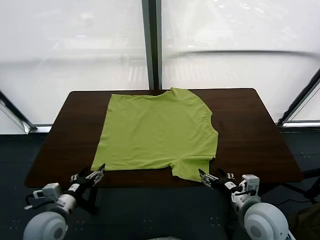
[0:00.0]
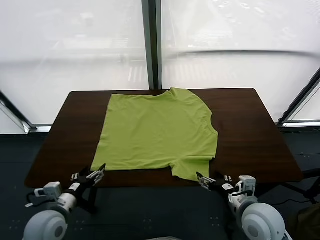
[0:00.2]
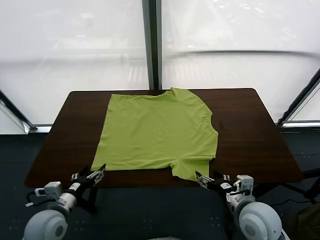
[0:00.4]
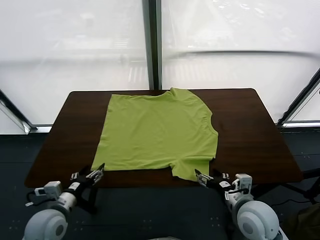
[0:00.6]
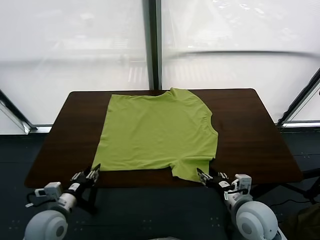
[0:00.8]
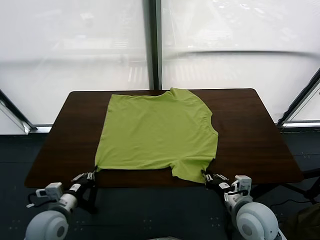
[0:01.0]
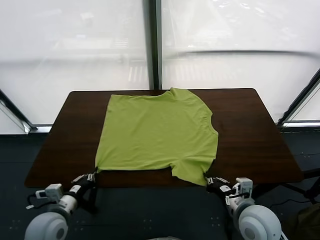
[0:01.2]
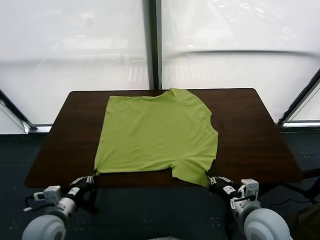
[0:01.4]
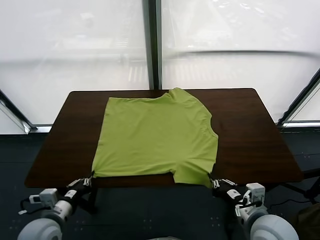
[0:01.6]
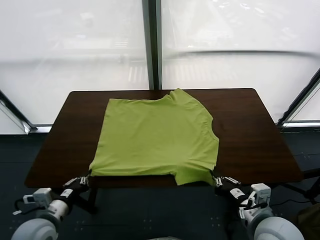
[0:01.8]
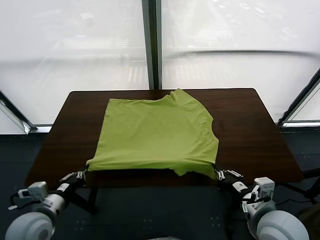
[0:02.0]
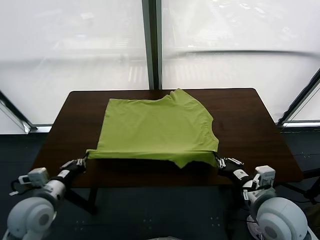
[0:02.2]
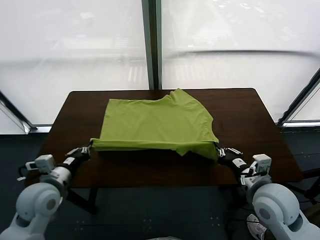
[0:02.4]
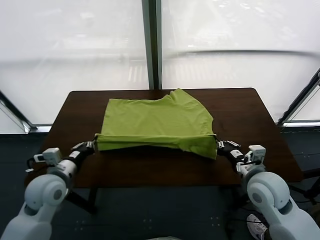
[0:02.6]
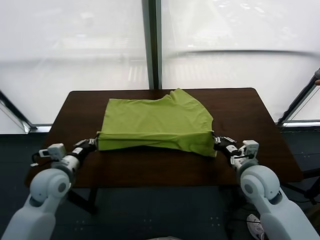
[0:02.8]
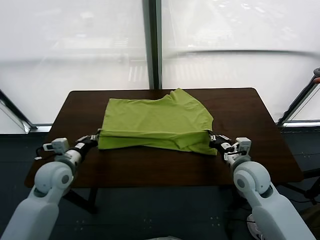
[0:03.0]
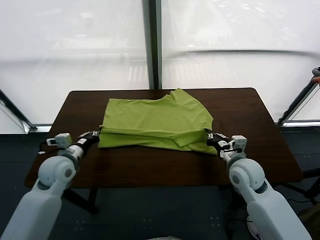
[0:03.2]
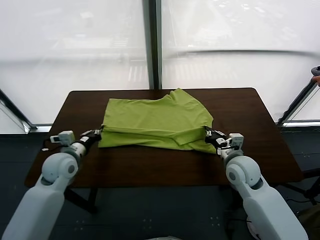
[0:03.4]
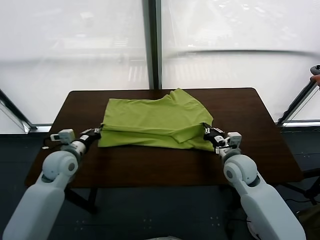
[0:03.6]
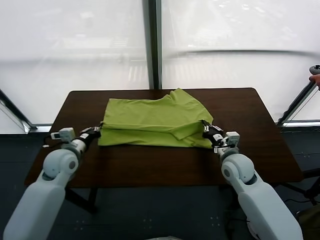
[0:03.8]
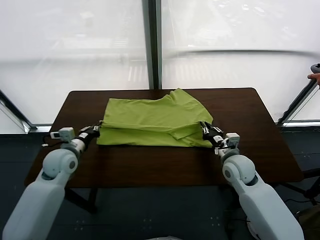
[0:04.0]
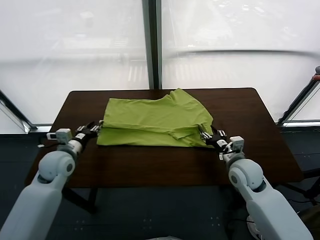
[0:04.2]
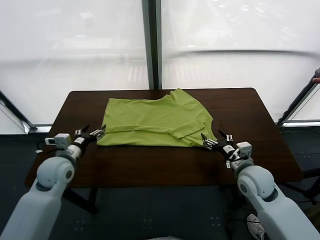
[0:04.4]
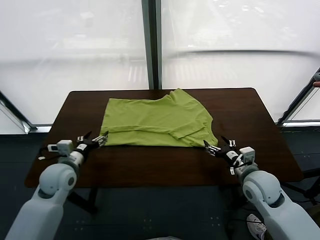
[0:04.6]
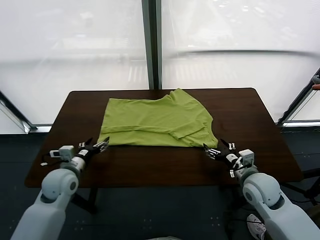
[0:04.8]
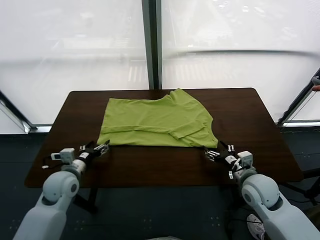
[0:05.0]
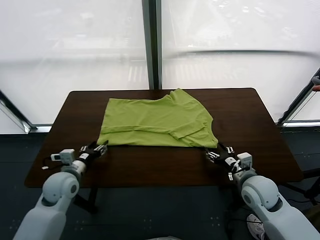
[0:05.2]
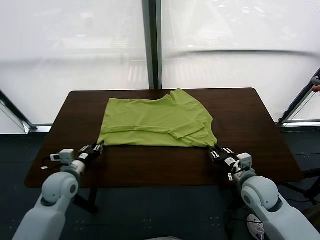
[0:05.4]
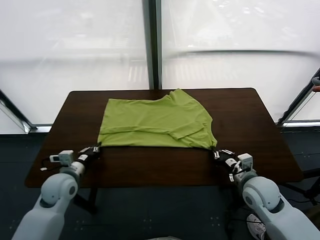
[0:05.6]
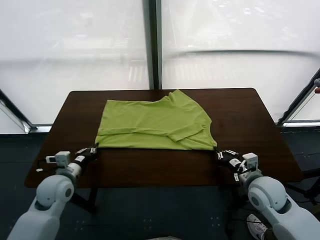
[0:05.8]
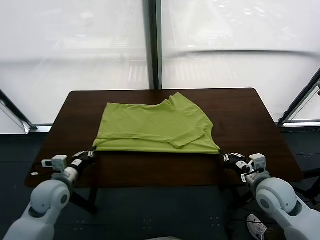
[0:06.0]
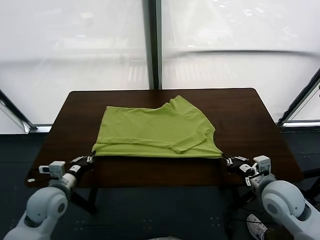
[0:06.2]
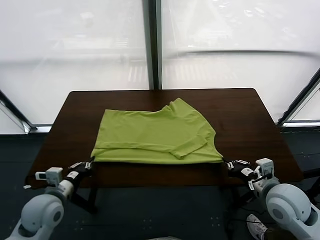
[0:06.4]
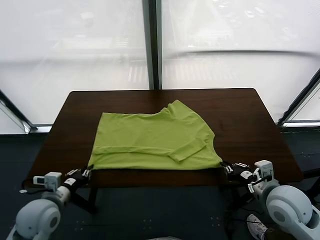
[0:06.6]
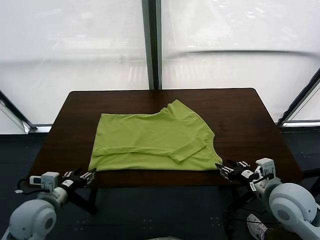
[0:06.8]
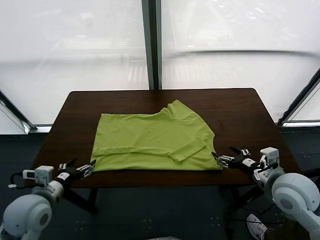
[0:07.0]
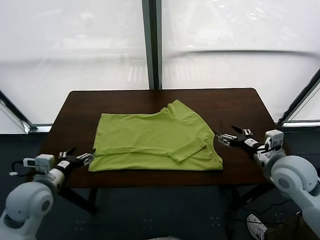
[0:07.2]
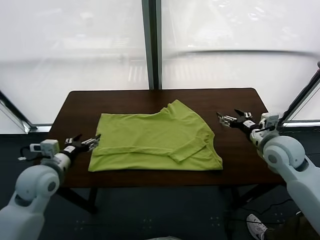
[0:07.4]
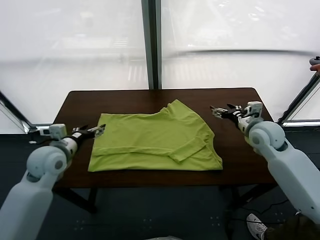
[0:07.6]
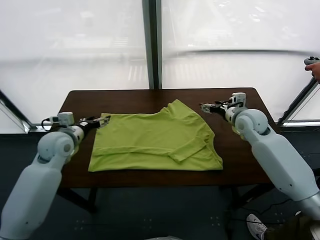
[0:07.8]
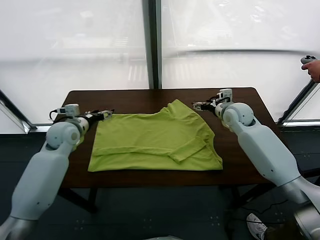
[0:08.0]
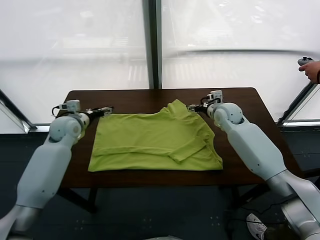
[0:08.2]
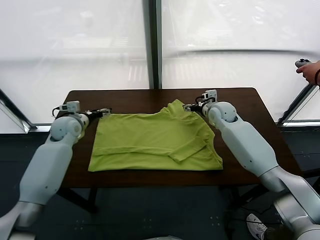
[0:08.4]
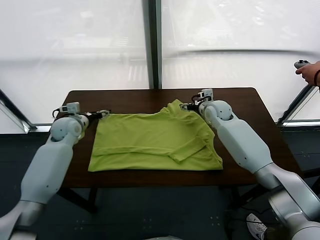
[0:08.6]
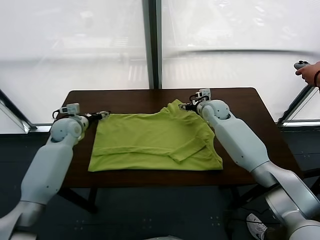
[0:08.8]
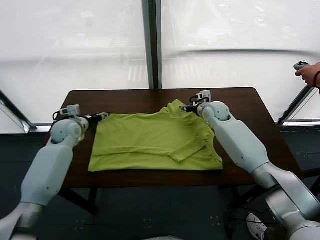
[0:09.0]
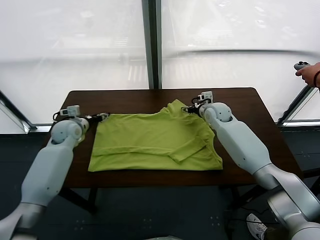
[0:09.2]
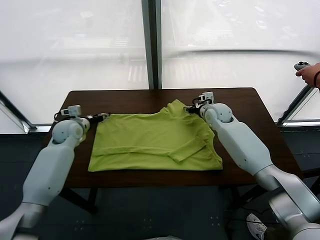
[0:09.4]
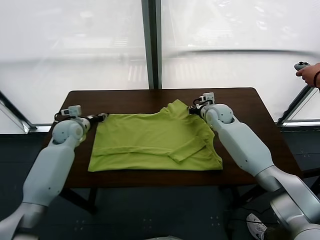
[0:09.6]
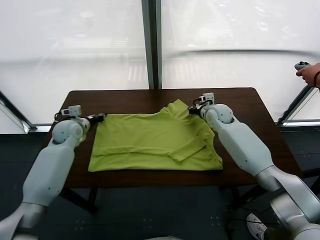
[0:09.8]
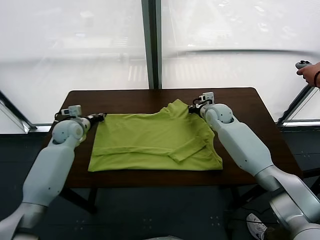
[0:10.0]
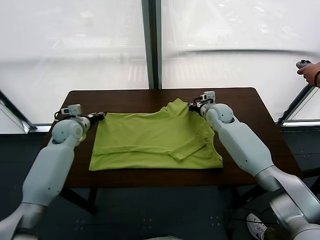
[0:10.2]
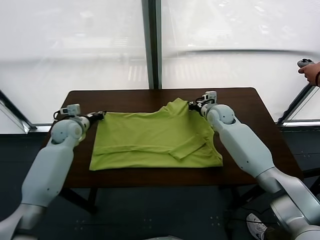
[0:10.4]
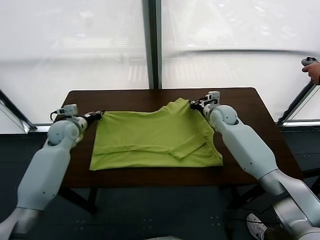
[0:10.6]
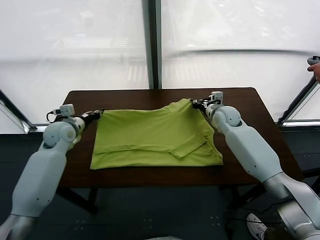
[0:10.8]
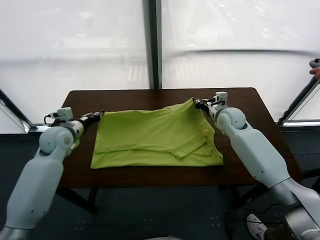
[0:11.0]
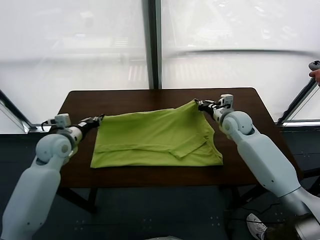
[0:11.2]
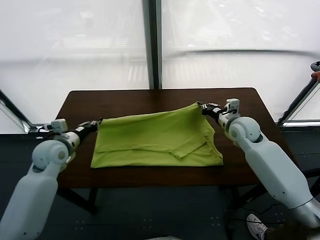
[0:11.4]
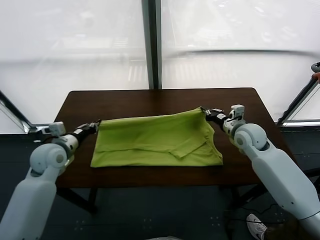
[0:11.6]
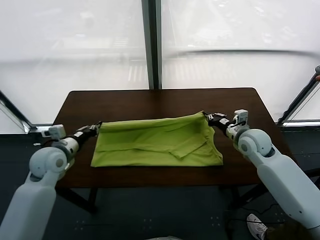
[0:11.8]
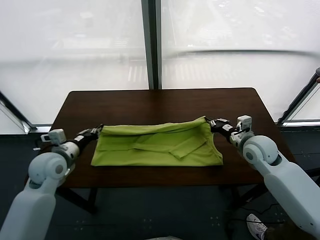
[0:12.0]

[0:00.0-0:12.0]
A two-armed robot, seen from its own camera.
Task of the whole recording: fold and organize the clothes.
Step, 0:00.0 to 0:01.2: use both grippers simultaneously to clamp the lower edge of the clothing fabric.
Step, 0:01.4 to 0:04.2: use both grippers to drag the lower edge of the fabric forward and fold it over the upper edge.
Step, 0:04.4 to 0:06.8: Drag the clothes downward with both gripper.
Step, 0:07.0 to 0:10.0: use both grippers simultaneously to clamp the upper edge of the clothing fabric.
0:01.6 to 0:03.0: The right gripper is displaced forward and downward by approximately 20 cm; the left gripper goes some 20 cm forward.
0:03.0 to 0:04.4: The left gripper opens; the right gripper moves backward, roughly 5 cm, and opens.
0:04.4 to 0:06.0: The left gripper moves backward, roughly 10 cm, and closes up, while the right gripper moves upward and backward, roughly 10 cm, and closes up.
0:06.0 to 0:07.6: The two grippers go approximately 25 cm forward. The left gripper opens; the right gripper opens.
0:07.6 to 0:09.0: The left gripper shifts by approximately 5 cm, and closes its fingers. Meanwhile the right gripper shifts by roughly 5 cm, and closes its fingers.
0:09.0 to 0:10.4: The left gripper ends up some 5 cm from where it was, and closes.
0:10.4 to 0:12.0: Both grippers travel together backward, approximately 15 cm.

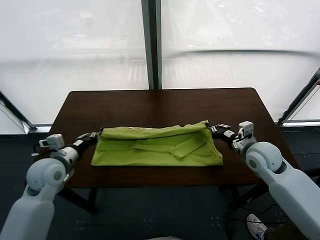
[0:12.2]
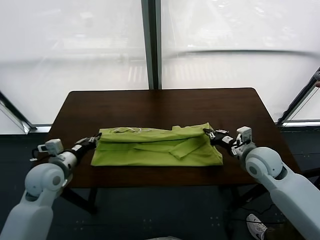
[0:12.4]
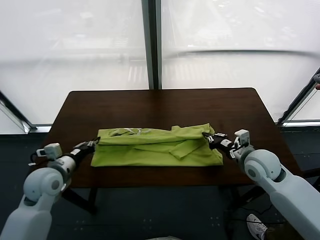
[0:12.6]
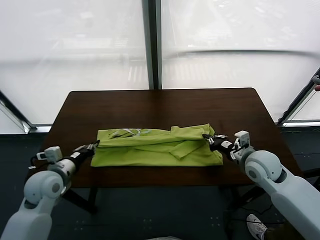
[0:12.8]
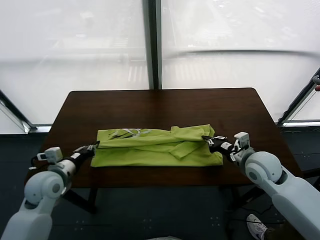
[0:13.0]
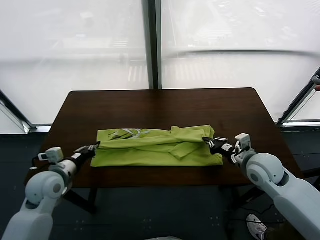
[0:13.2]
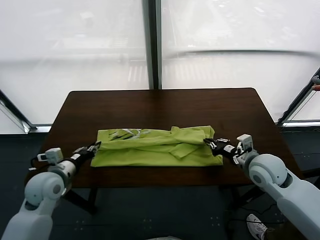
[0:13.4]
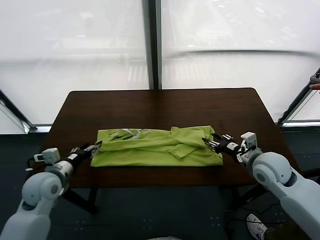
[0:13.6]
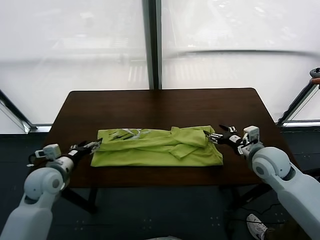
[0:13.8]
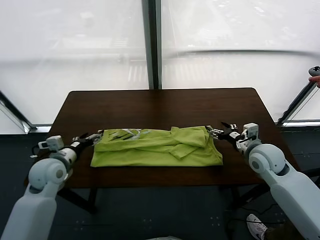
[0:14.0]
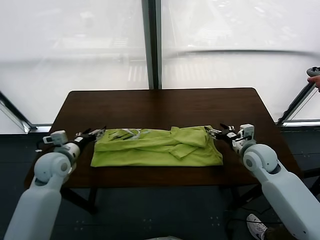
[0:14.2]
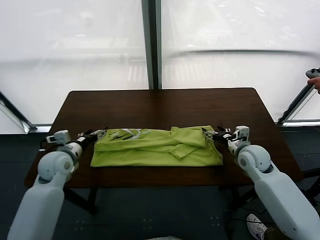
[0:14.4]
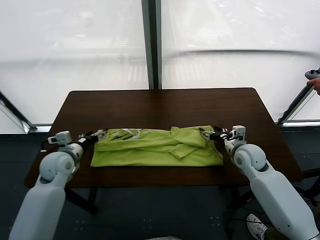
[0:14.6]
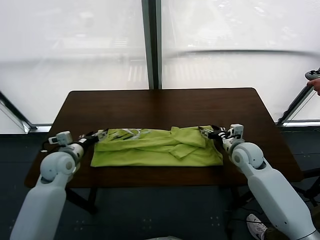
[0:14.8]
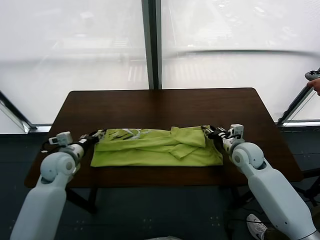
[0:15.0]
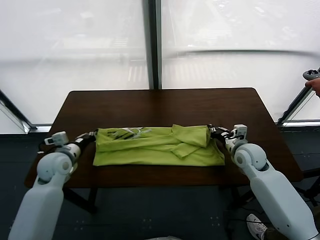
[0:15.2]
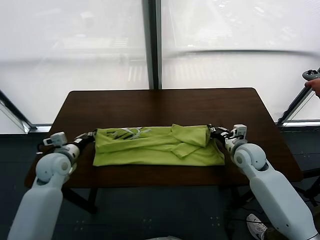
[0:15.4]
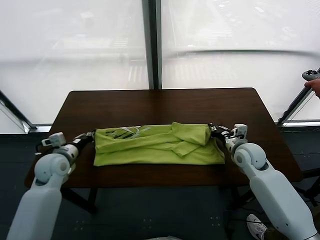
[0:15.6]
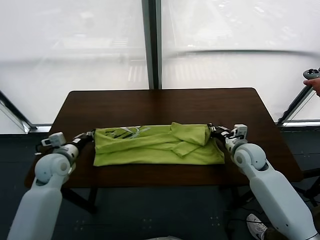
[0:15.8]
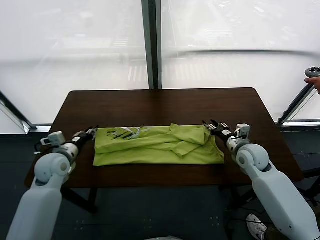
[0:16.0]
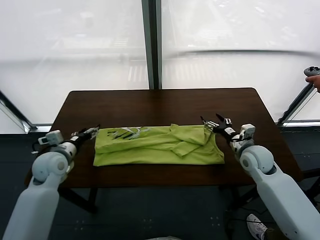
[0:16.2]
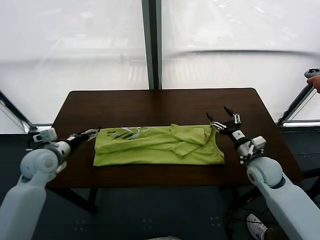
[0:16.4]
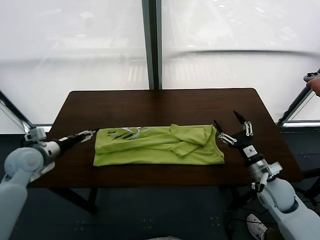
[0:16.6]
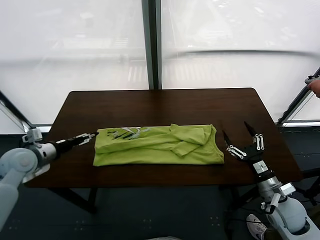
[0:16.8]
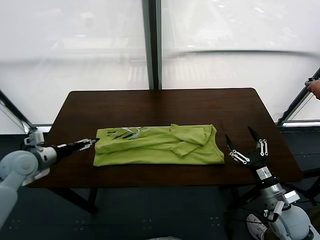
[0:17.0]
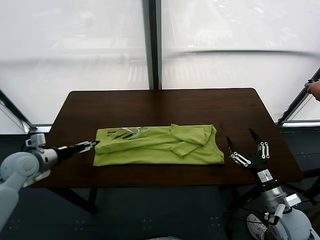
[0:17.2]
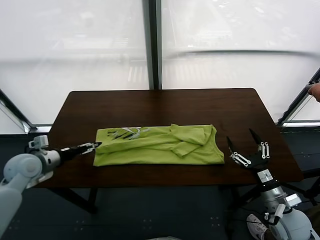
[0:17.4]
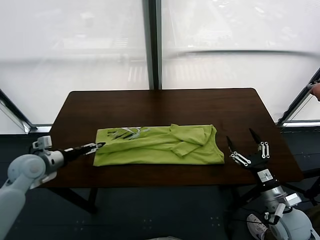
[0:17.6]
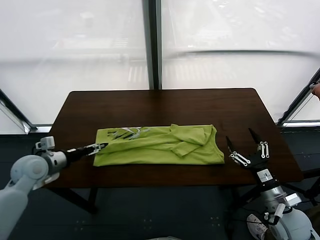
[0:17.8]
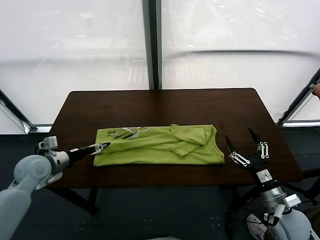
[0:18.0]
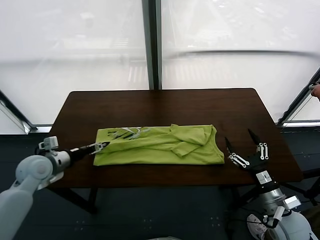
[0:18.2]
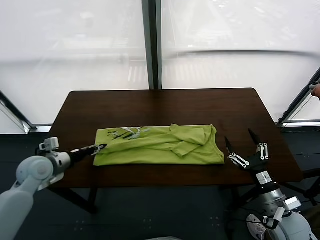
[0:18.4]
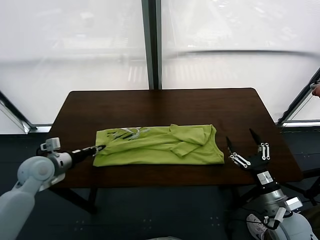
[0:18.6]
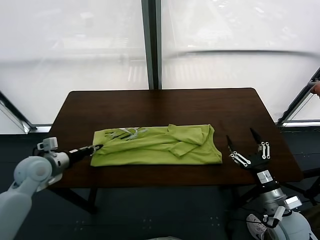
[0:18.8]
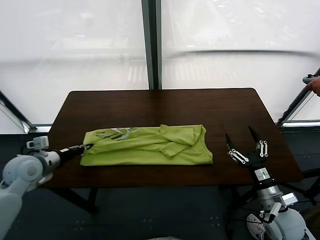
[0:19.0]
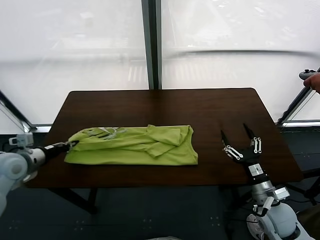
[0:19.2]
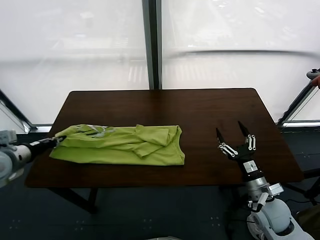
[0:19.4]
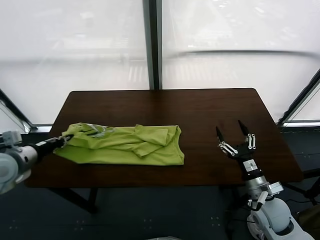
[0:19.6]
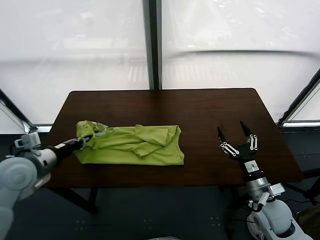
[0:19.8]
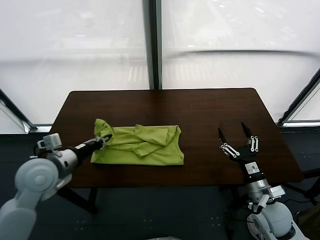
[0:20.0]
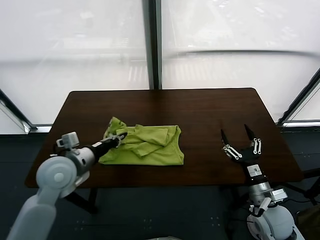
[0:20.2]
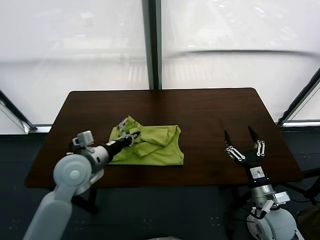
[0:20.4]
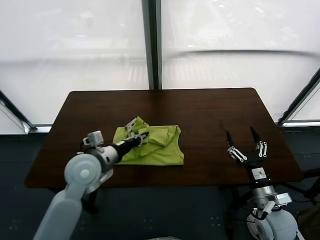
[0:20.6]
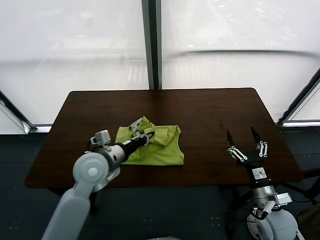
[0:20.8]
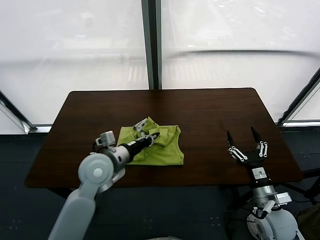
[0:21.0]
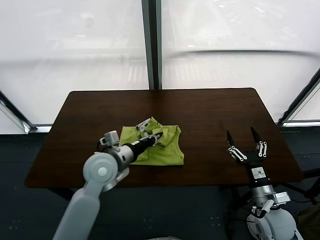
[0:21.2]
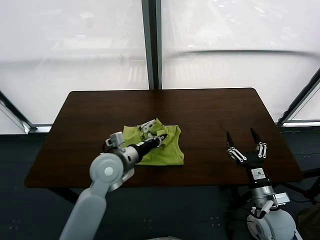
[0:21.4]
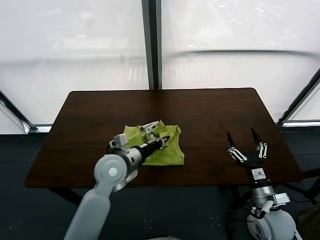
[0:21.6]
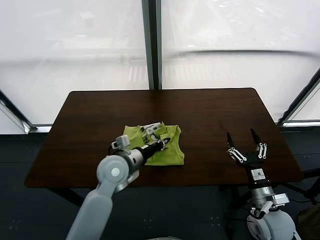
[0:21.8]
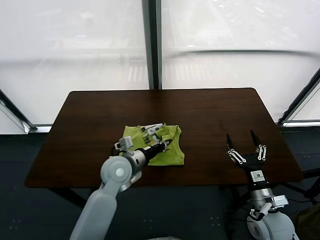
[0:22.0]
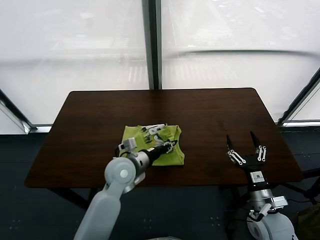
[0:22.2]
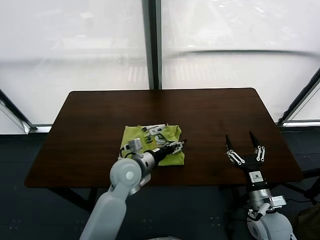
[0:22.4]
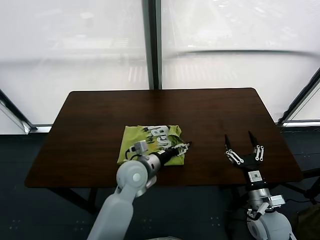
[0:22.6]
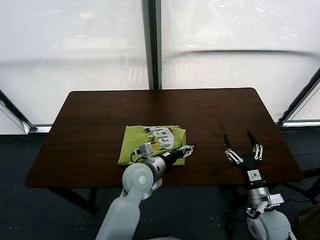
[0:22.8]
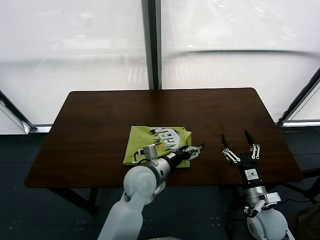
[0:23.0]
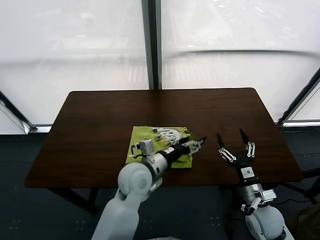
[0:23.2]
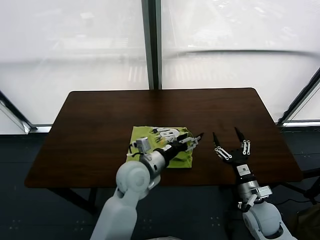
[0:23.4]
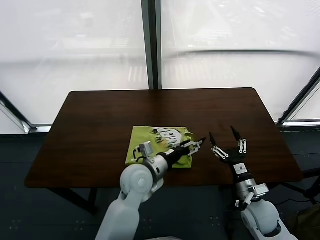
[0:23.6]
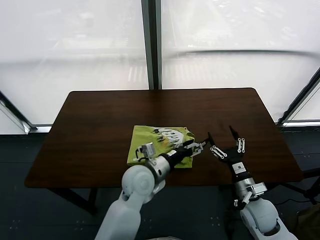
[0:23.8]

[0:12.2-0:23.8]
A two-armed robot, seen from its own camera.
Task of the whole recording: fold and organize the clothes.
Step, 0:13.8 to 0:18.4: use the left gripper to clamp the left edge of the fabric.
Step, 0:18.6 to 0:23.4: use the left gripper to drag the left edge of the fabric to the left and folds it over the right edge.
0:12.2 to 0:13.6: The left gripper goes roughly 5 cm forward, and opens its fingers; the right gripper moves some 5 cm, and opens its fingers.
0:13.6 to 0:15.0: The right gripper closes up. The left gripper closes its fingers.
0:15.0 to 0:16.6: The left gripper goes roughly 10 cm to the left and upward, and opens its fingers; the right gripper goes approximately 10 cm backward, and opens.
0:16.6 to 0:18.0: The right gripper travels backward by about 10 cm.
0:18.0 to 0:19.4: The left gripper goes roughly 10 cm upward, and closes up; the right gripper changes place by approximately 5 cm.
0:19.4 to 0:21.0: The left gripper heads to the right, covering approximately 25 cm.
0:21.0 to 0:22.4: The left gripper is displaced to the right by some 10 cm, and opens up.
